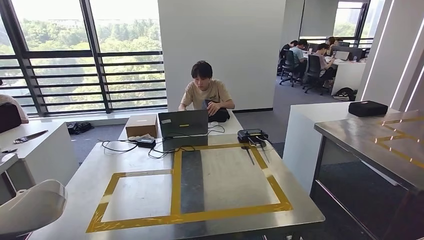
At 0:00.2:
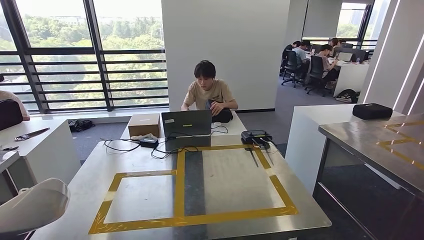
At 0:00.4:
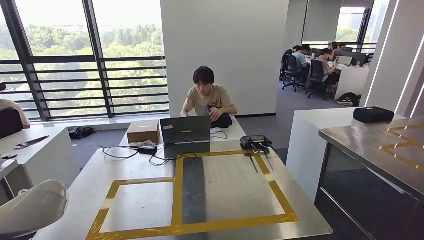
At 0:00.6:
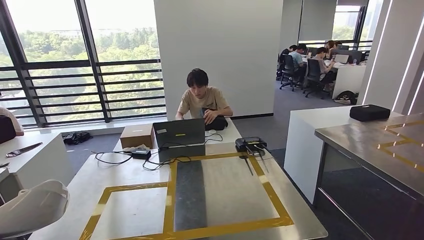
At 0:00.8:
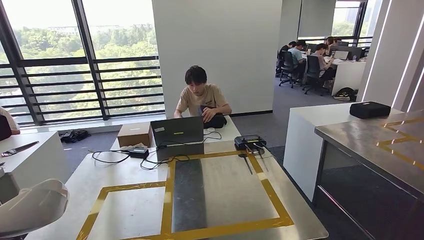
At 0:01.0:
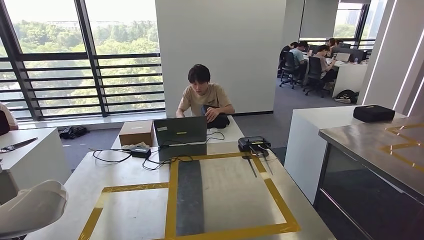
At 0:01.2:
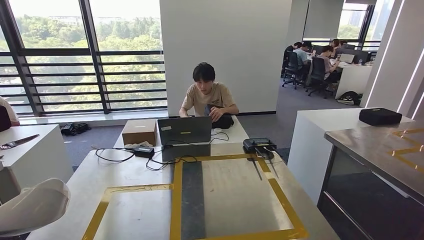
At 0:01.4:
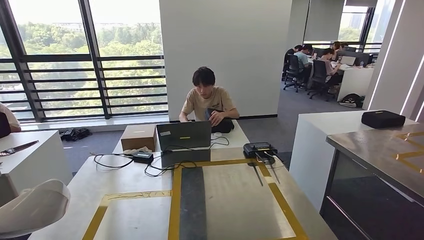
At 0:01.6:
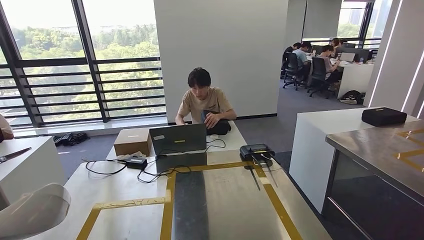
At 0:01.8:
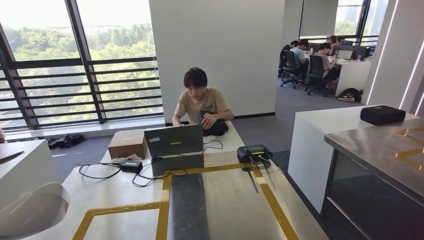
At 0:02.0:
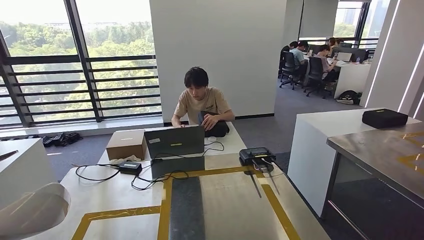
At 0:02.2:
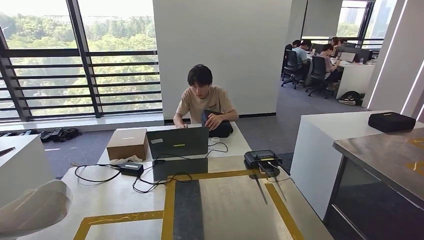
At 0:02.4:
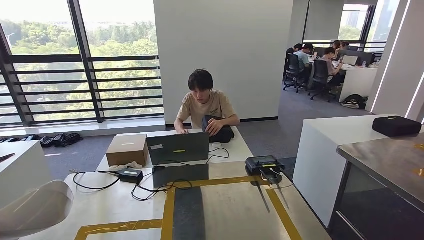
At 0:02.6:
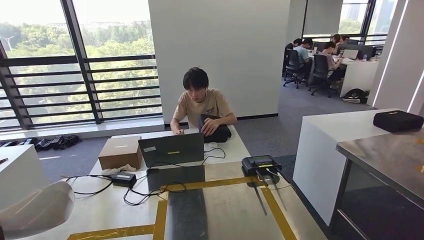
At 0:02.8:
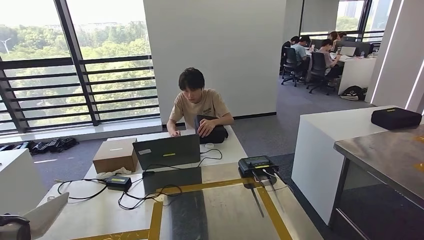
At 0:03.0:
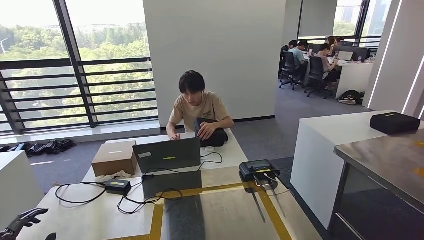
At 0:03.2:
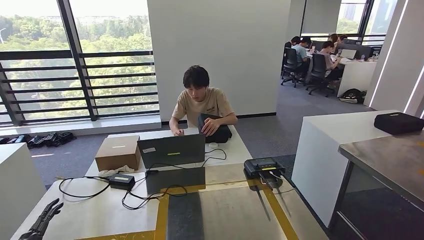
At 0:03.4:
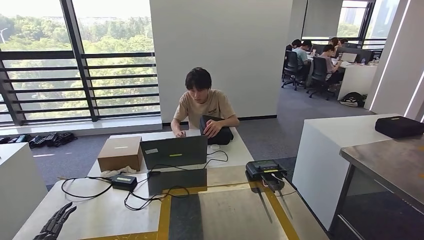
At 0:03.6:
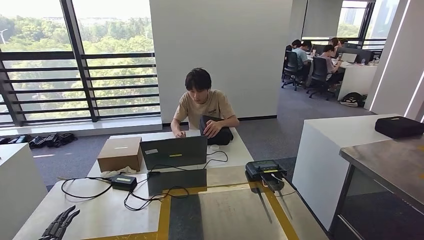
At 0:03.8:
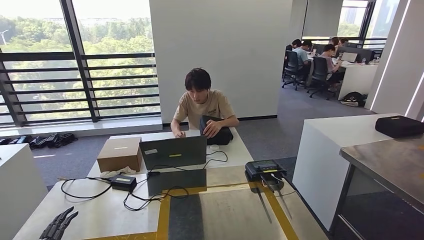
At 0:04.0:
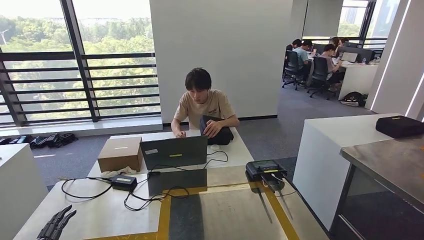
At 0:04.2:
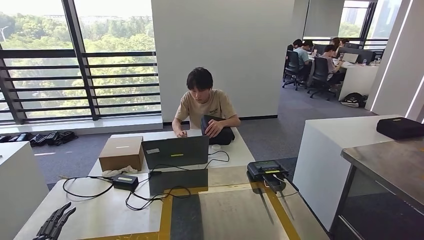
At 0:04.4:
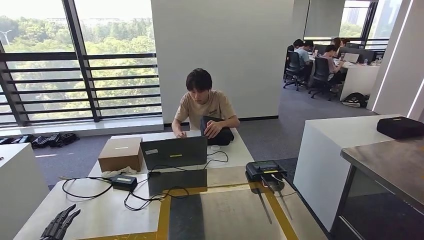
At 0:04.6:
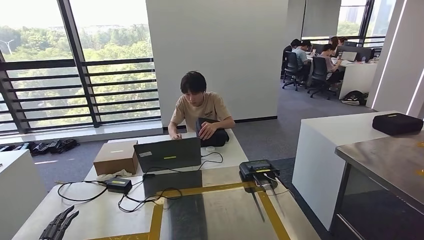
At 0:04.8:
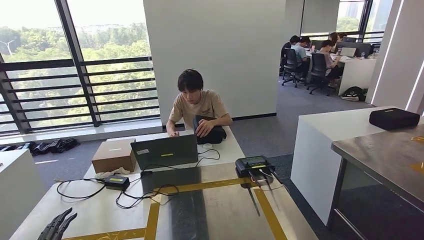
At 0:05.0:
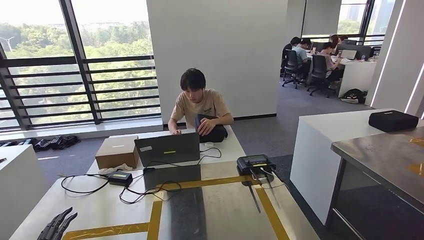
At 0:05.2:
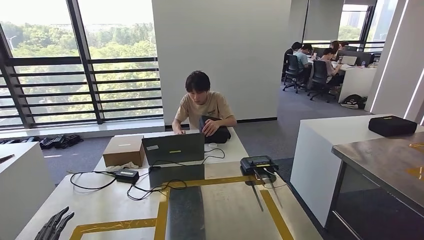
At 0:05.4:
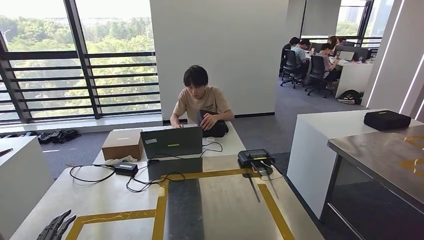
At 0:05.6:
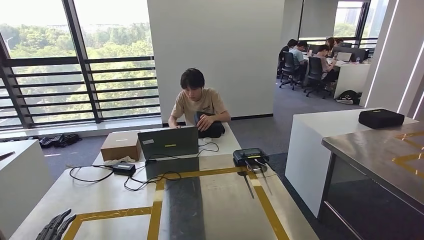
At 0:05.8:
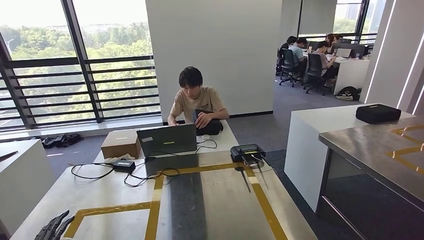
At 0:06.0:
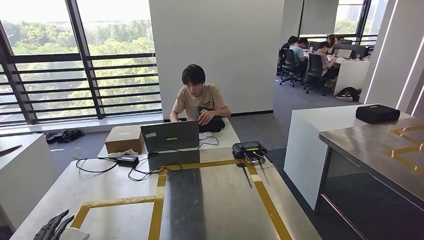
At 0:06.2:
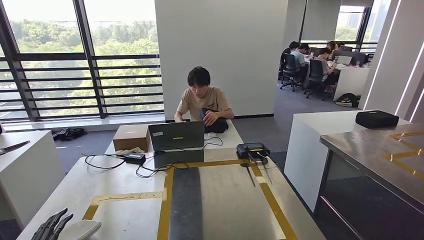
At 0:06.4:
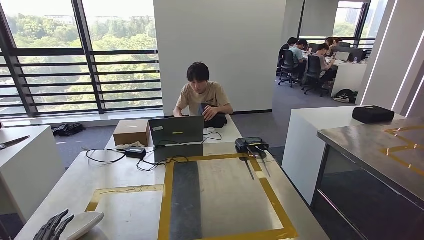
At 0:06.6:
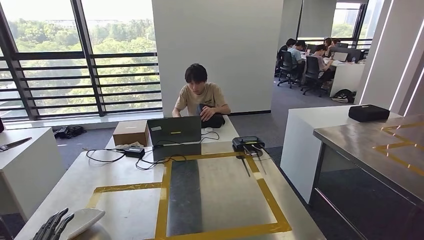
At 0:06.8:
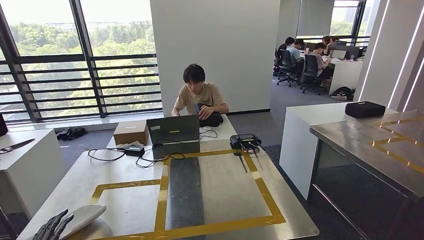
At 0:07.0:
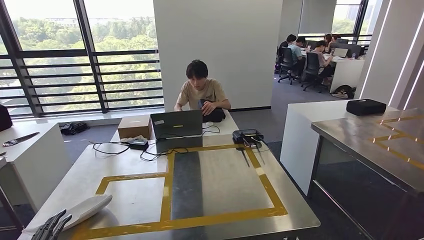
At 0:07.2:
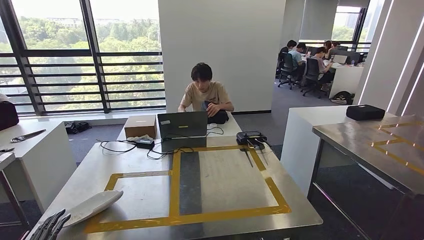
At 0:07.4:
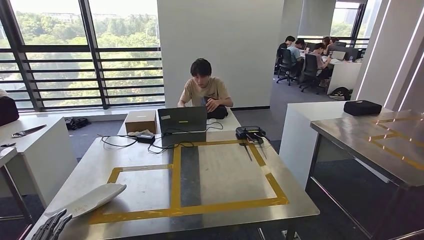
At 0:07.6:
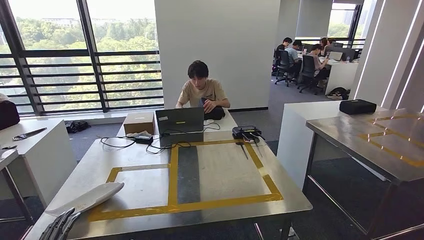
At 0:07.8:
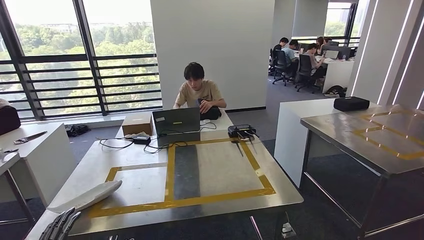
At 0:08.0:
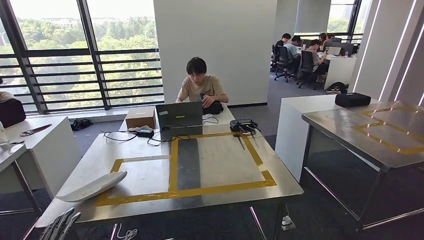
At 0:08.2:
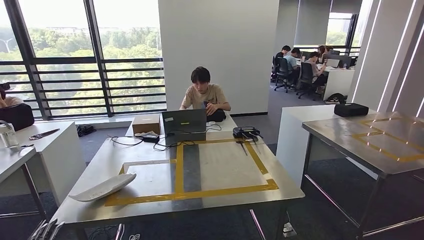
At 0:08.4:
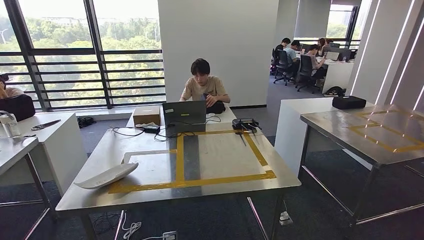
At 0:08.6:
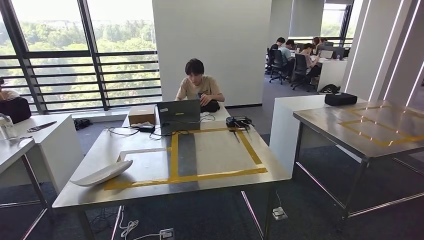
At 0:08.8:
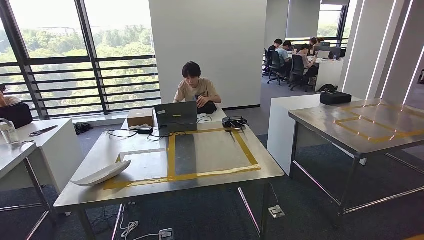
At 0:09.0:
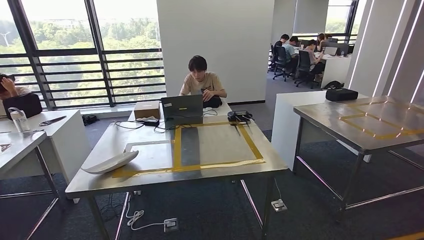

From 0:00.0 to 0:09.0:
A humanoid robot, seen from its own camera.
Step, from 0:00.0 to 0:04.2: Insert the small parts into the corresponding holes on the workbench.
Step, from 0:04.4 to 0:09.0: Move to the initial position of the workbench.
